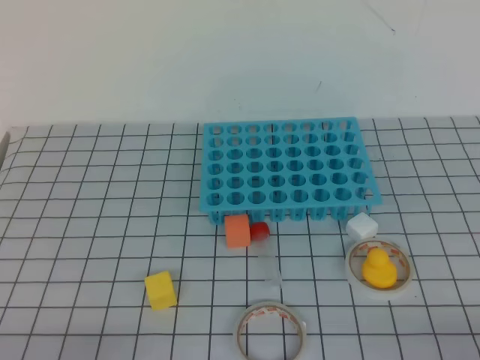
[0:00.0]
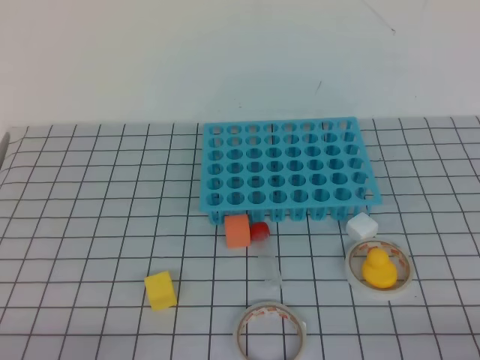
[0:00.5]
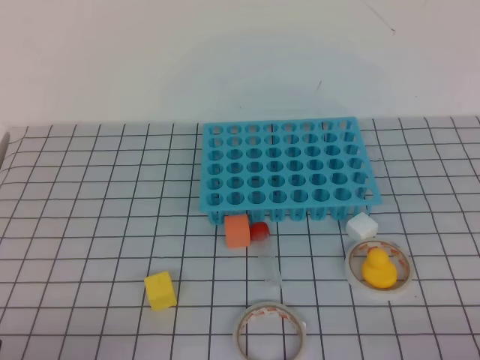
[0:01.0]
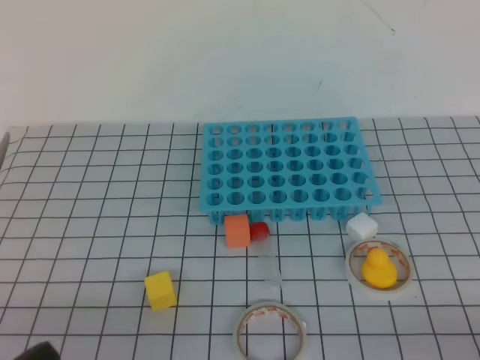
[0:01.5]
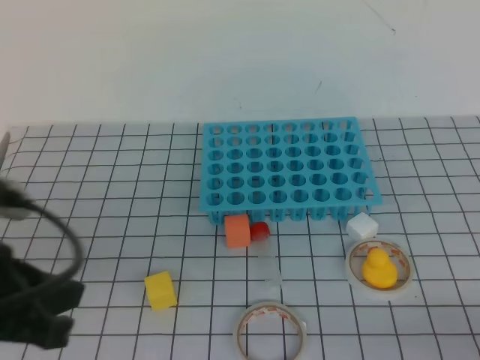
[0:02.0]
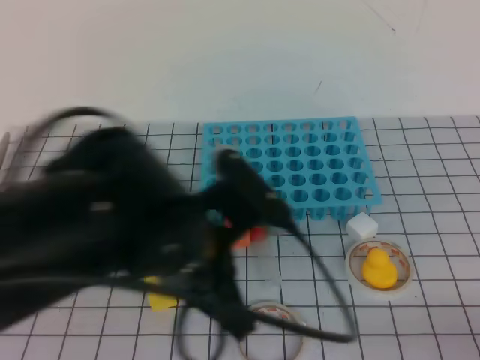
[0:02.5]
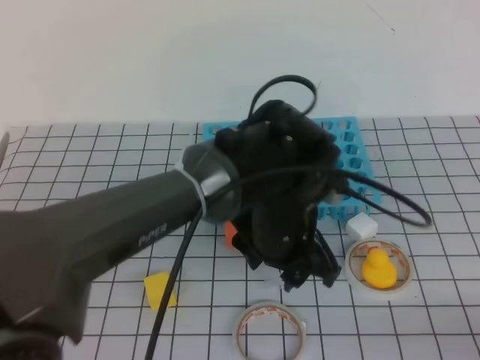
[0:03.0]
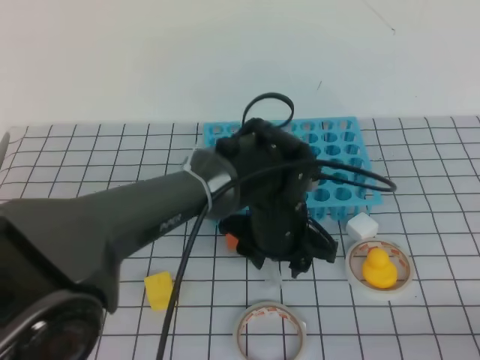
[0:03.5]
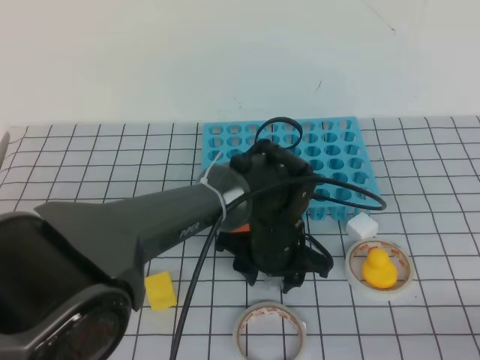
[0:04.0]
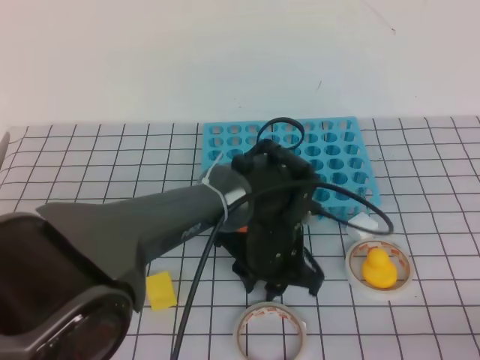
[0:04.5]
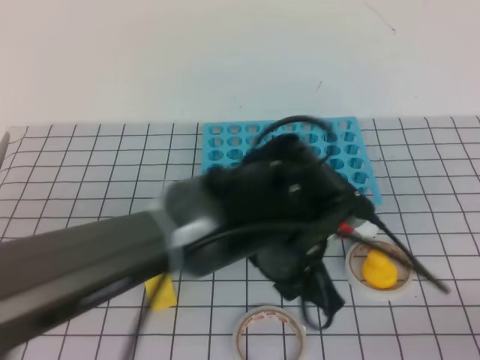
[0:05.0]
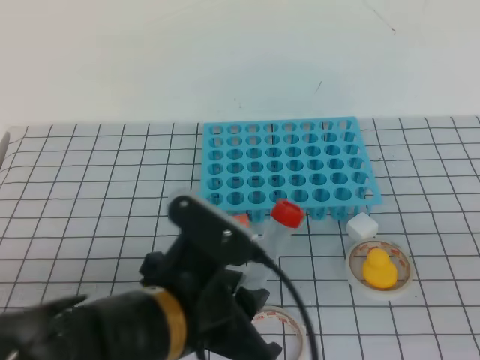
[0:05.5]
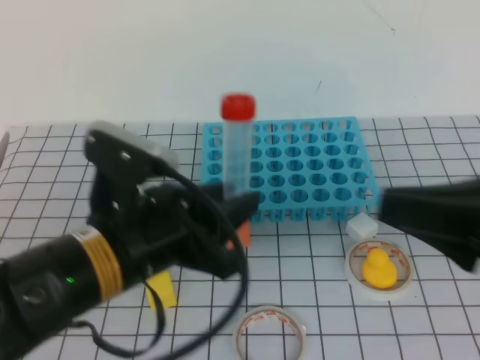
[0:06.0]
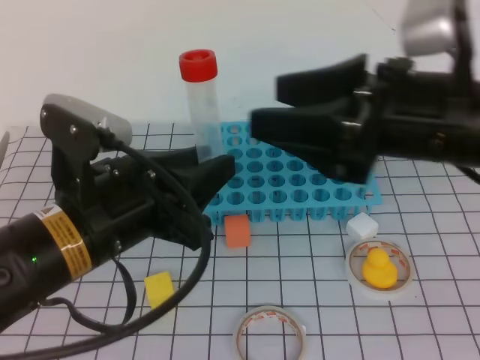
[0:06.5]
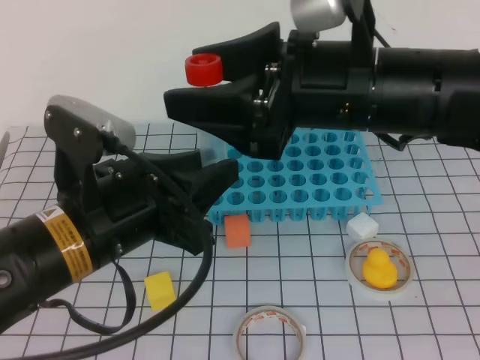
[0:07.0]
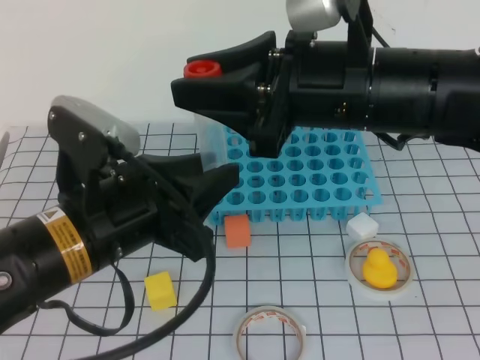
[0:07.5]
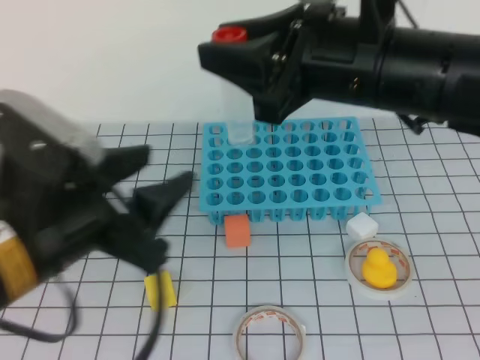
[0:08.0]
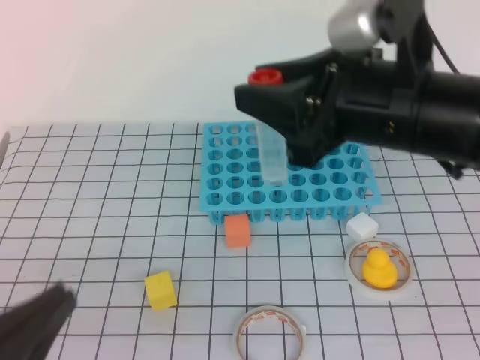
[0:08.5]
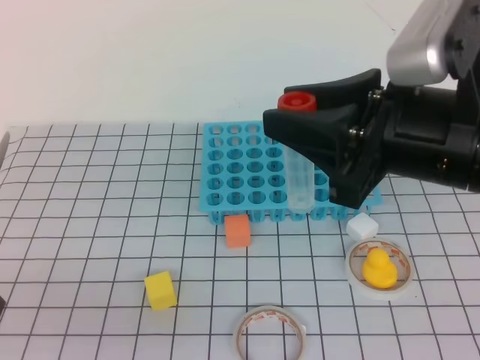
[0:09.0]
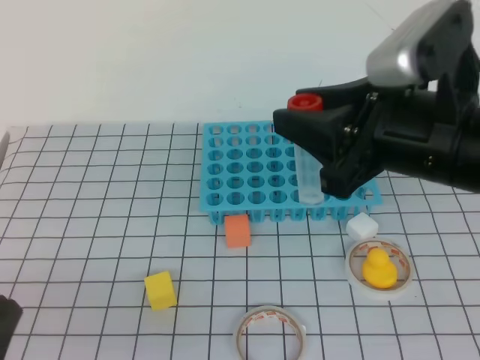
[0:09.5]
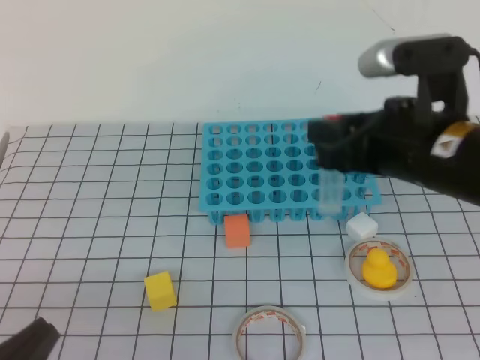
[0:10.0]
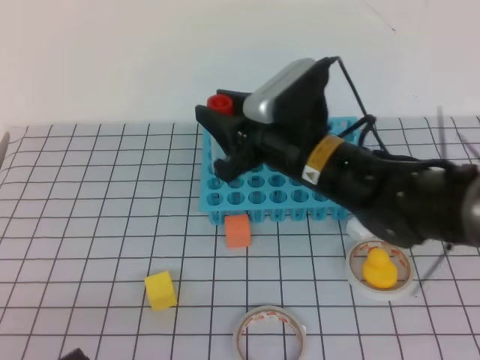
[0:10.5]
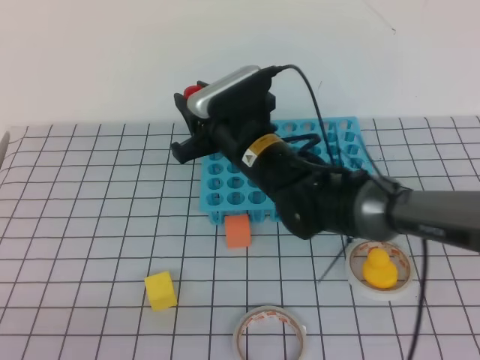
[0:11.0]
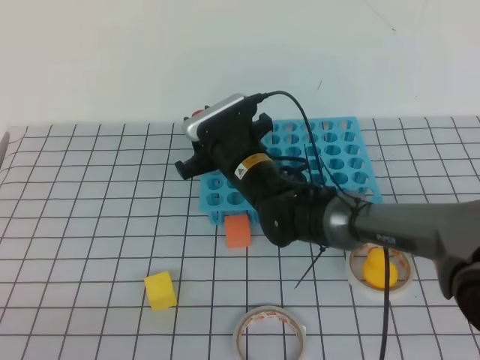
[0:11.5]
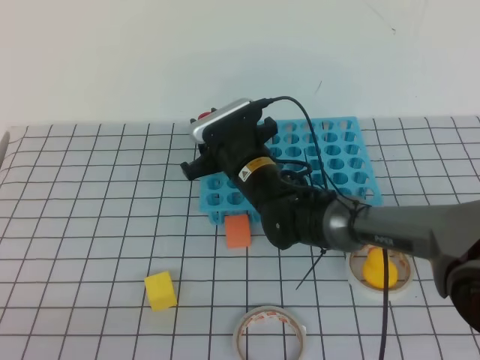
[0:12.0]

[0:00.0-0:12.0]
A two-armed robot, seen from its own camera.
0:00.0 to 0:02.0: The left gripper moves upward and forward, roughly 15 cm.
0:02.0 to 0:04.0: The left gripper shifts roughly 35 cm to the right, forward and downward, and opens up.
0:04.0 to 0:06.0: The left gripper heads backward, to the left and upward, covering approximately 25 cm, and closes, while the right gripper shifts some 20 cm upward, forward and to the left.
0:06.0 to 0:08.0: The right gripper goes approximately 20 cm to the left, forward and upward, and opens up. Meanwhile the left gripper shifts by roughly 5 cm, and opens up.
0:08.0 to 0:10.0: The right gripper moves downward and to the right, approximately 10 cm, while the left gripper is displaced backward, downward and to the left by some 15 cm, and closes its fingers.
0:10.0 to 0:12.0: The right gripper heads downward, to the left and forward, covering some 25 cm.

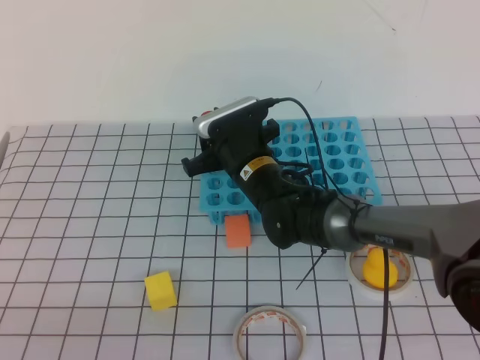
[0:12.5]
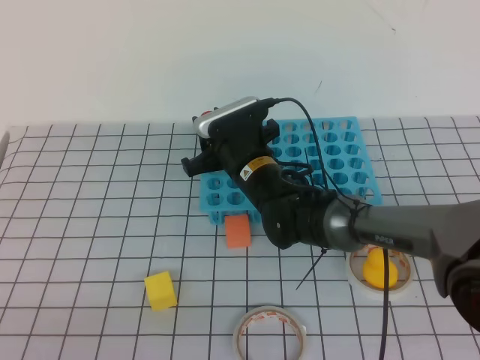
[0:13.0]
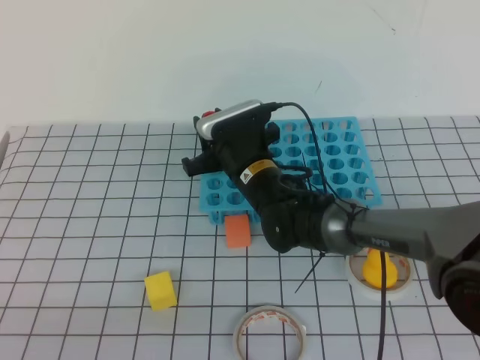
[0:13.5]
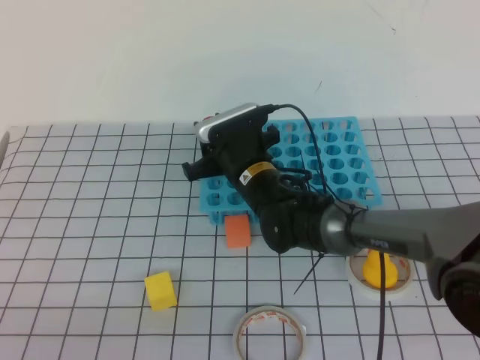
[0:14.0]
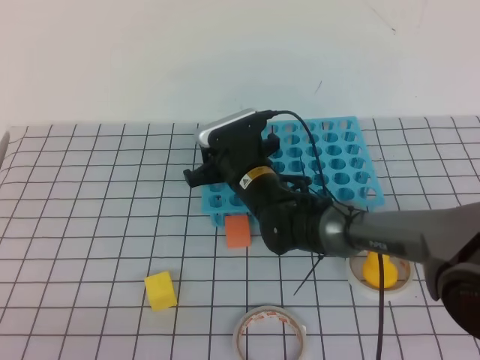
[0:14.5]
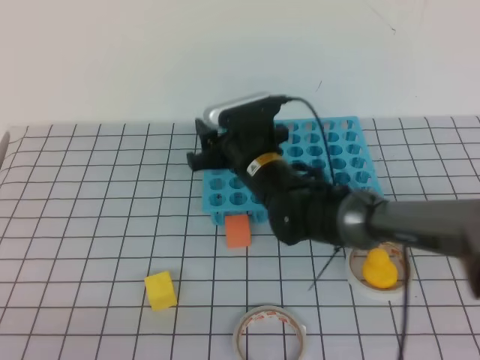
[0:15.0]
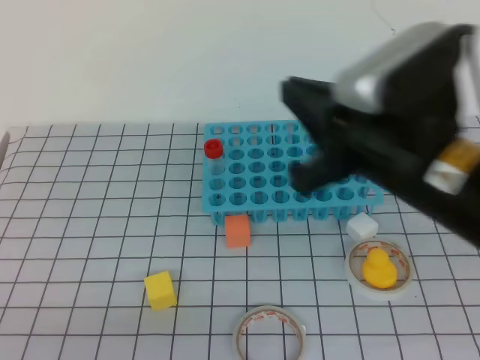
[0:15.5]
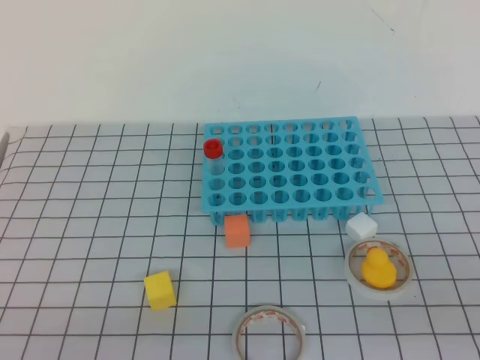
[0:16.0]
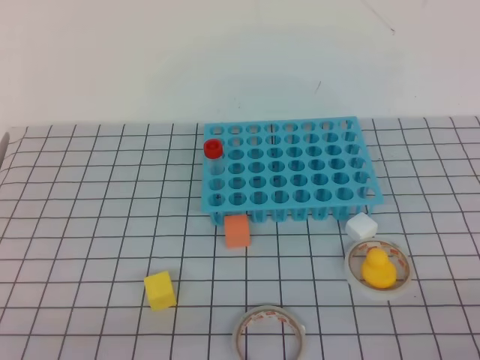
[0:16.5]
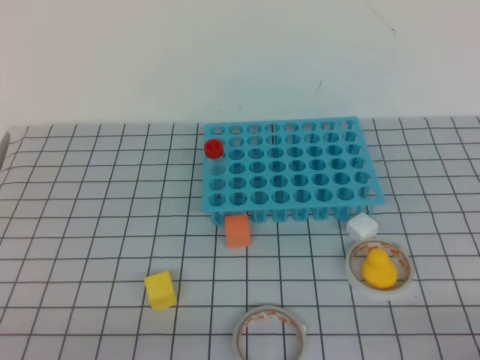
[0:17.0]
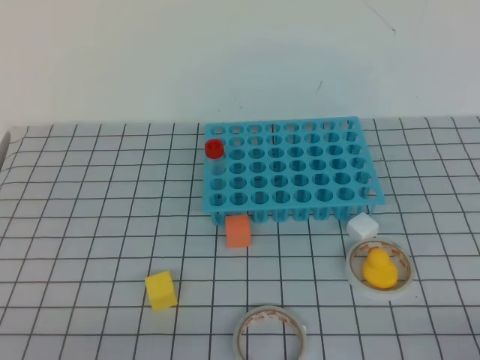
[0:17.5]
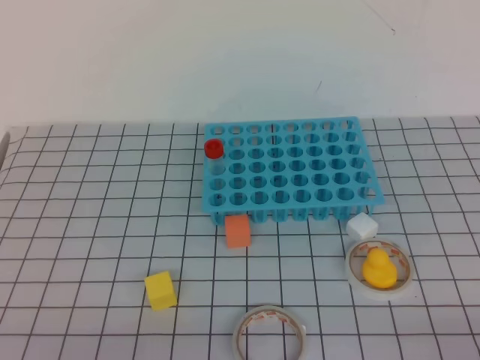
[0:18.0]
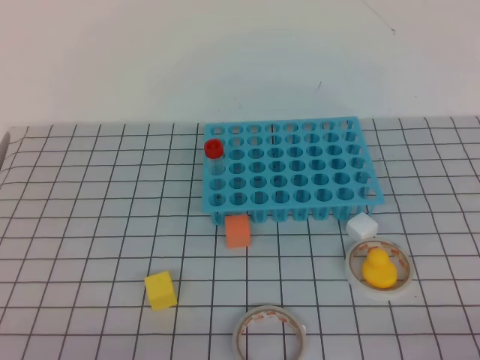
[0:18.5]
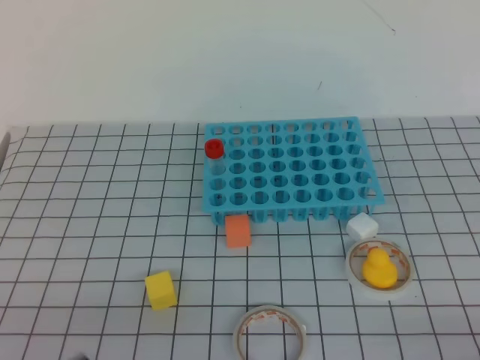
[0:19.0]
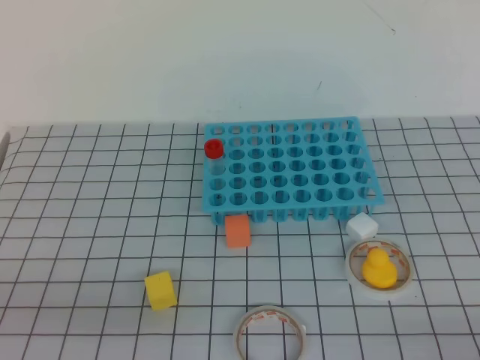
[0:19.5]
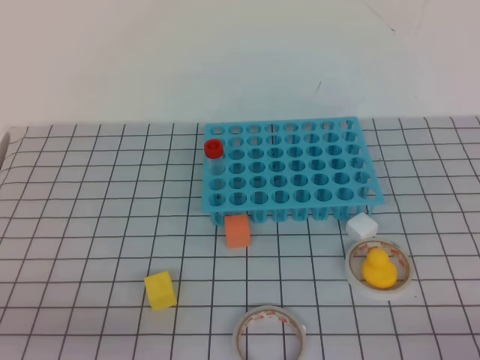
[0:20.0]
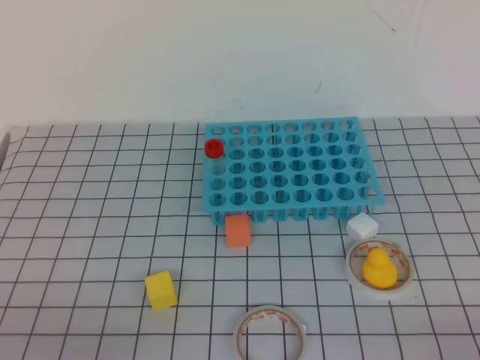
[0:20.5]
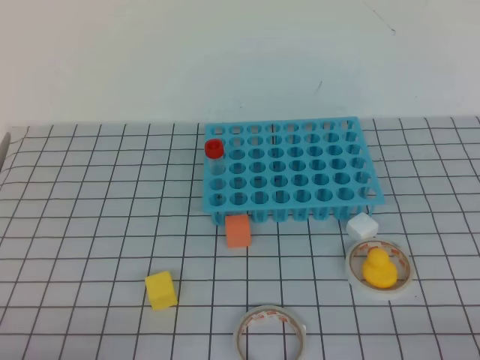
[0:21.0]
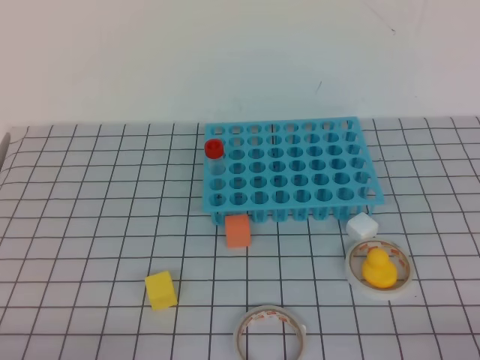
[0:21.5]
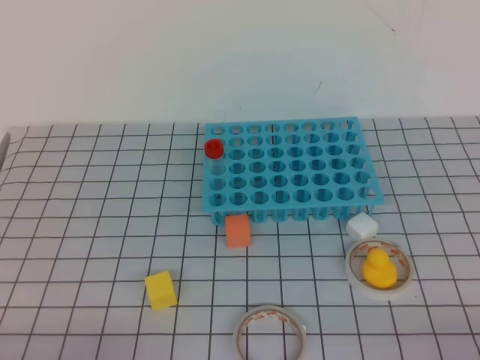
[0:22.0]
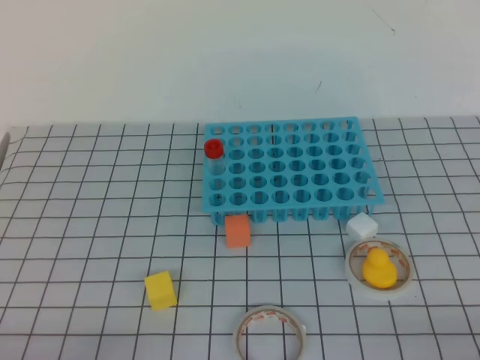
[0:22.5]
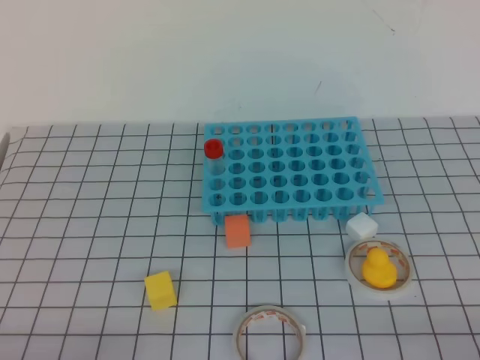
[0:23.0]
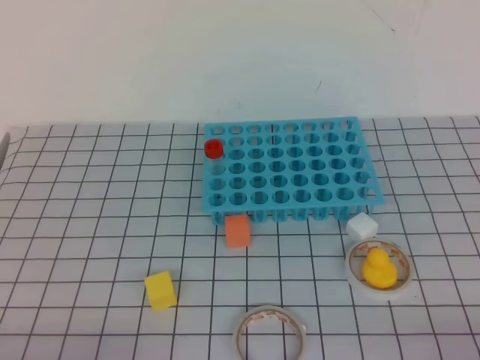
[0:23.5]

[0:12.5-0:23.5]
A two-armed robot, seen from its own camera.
0:12.5 to 0:14.5: The grippers stay close to where they were, moving slightly.
0:14.5 to 0:16.0: The right gripper heads backward, to the right and upward, covering some 40 cm, and closes its fingers.
0:16.0 to 0:18.0: The right gripper is displaced downward and to the right by some 15 cm.
0:21.5 to 0:23.5: The two grippers keep their place.
